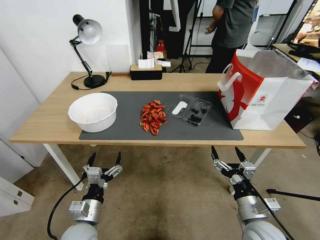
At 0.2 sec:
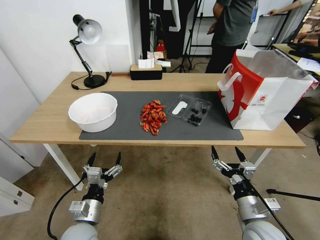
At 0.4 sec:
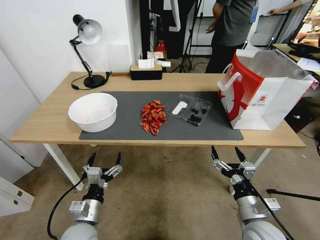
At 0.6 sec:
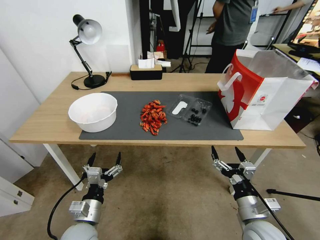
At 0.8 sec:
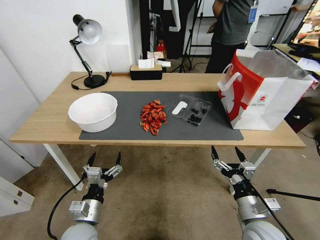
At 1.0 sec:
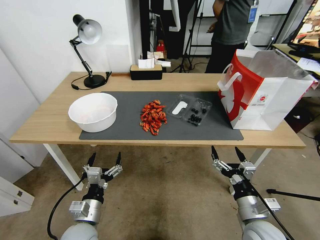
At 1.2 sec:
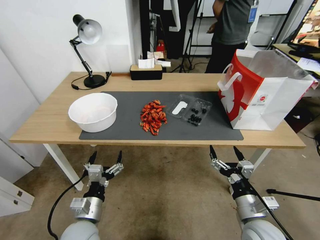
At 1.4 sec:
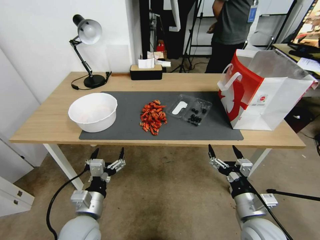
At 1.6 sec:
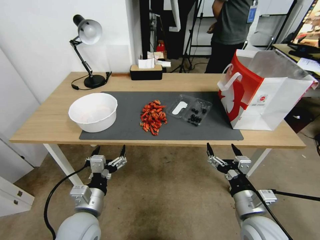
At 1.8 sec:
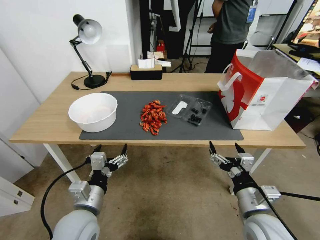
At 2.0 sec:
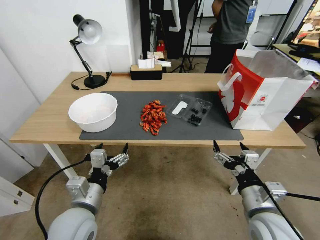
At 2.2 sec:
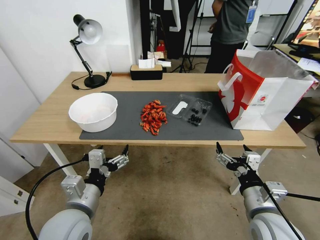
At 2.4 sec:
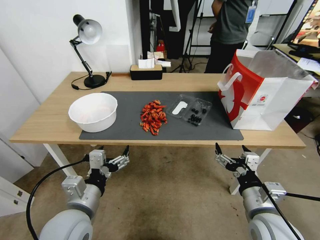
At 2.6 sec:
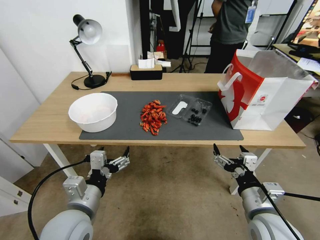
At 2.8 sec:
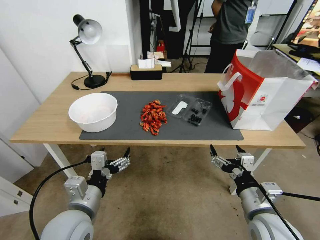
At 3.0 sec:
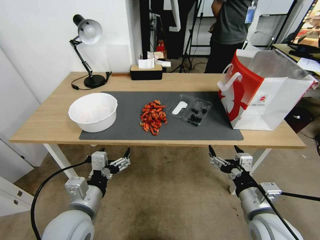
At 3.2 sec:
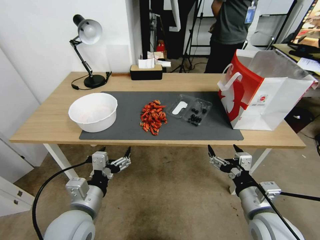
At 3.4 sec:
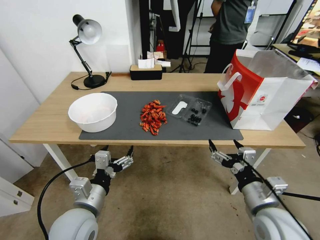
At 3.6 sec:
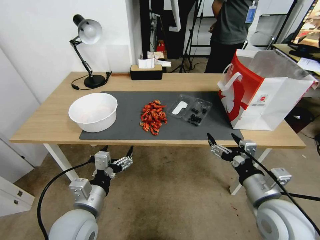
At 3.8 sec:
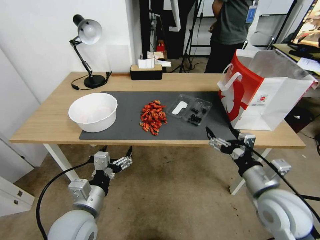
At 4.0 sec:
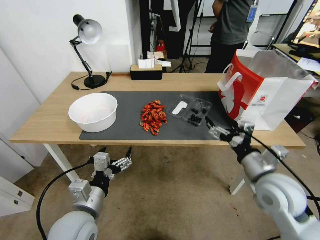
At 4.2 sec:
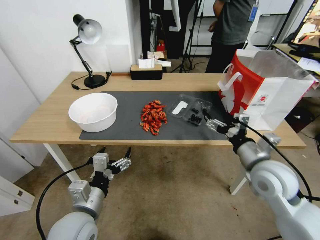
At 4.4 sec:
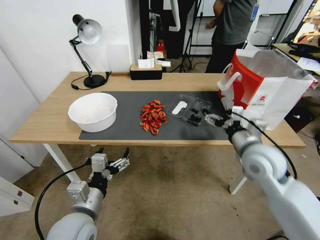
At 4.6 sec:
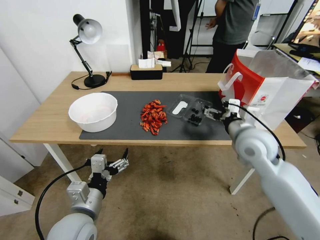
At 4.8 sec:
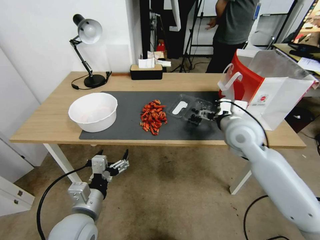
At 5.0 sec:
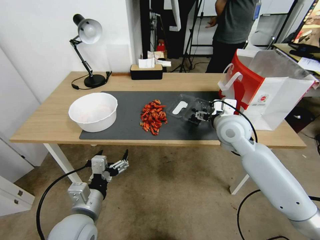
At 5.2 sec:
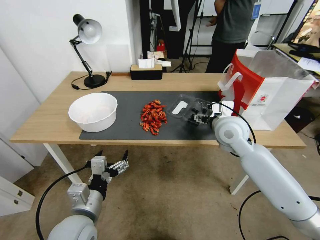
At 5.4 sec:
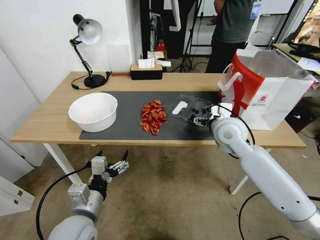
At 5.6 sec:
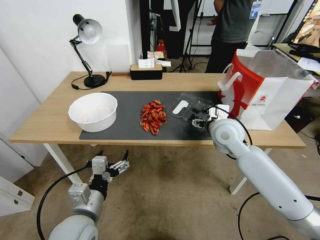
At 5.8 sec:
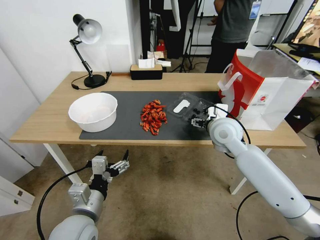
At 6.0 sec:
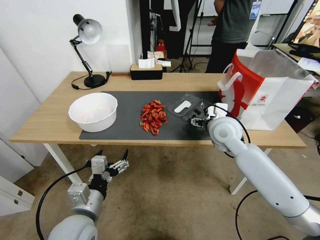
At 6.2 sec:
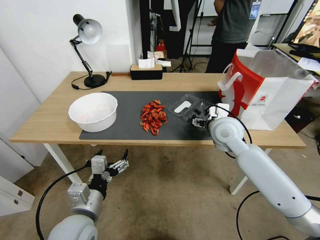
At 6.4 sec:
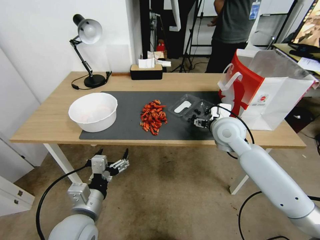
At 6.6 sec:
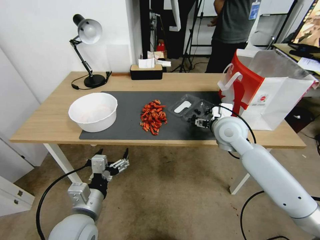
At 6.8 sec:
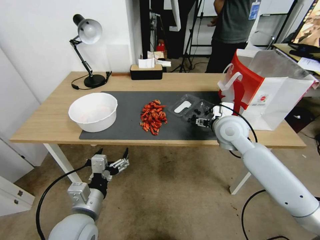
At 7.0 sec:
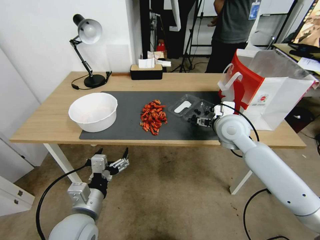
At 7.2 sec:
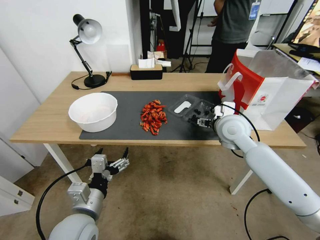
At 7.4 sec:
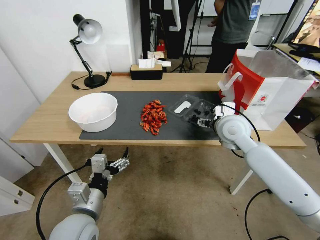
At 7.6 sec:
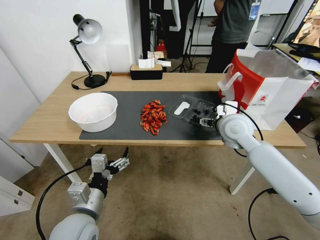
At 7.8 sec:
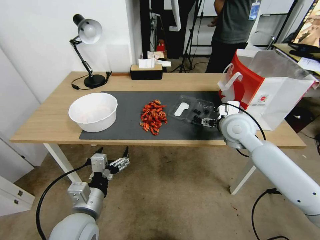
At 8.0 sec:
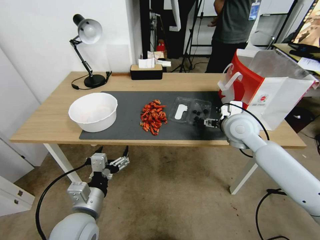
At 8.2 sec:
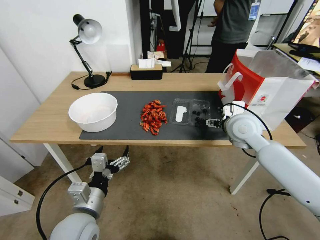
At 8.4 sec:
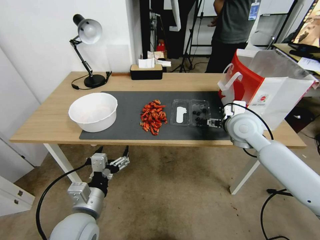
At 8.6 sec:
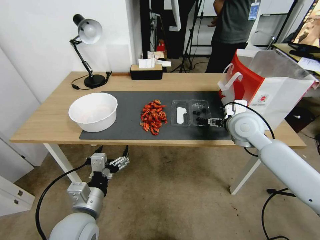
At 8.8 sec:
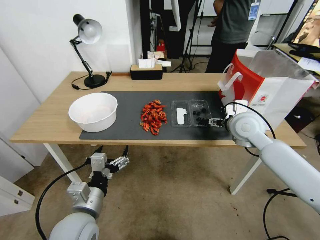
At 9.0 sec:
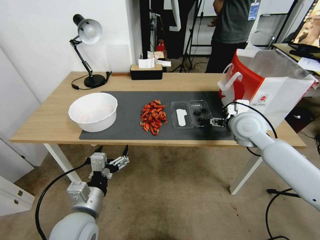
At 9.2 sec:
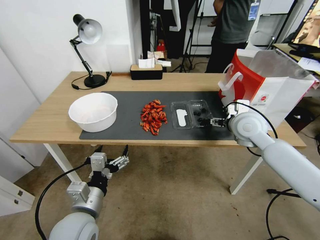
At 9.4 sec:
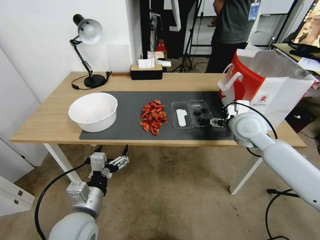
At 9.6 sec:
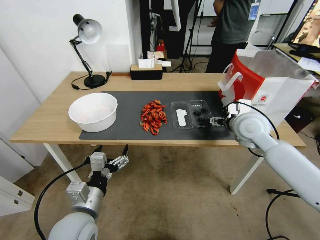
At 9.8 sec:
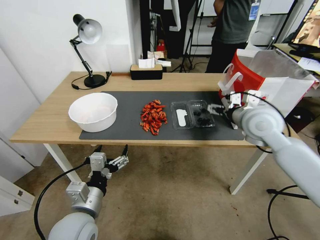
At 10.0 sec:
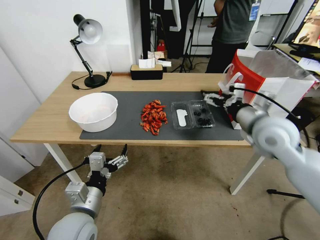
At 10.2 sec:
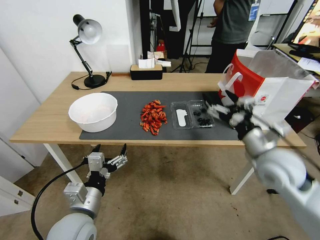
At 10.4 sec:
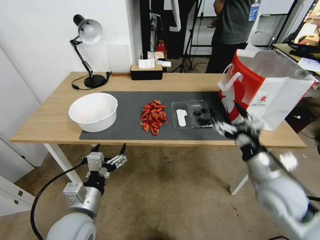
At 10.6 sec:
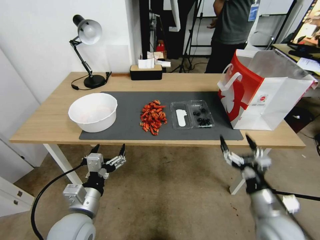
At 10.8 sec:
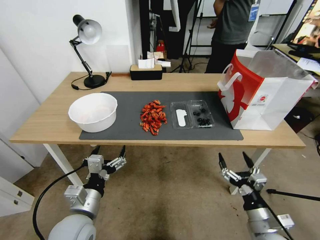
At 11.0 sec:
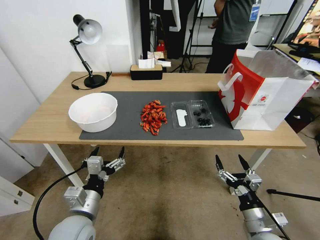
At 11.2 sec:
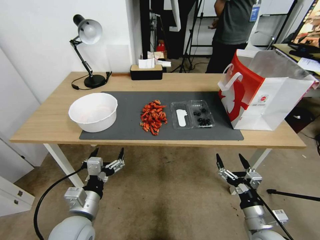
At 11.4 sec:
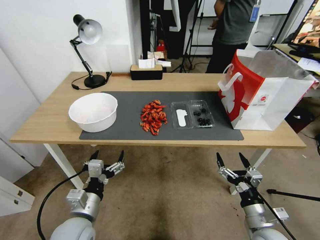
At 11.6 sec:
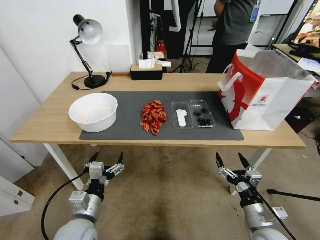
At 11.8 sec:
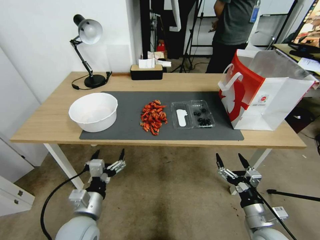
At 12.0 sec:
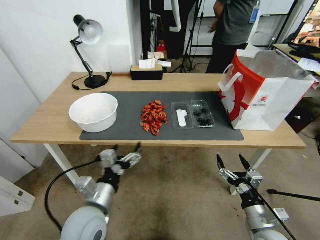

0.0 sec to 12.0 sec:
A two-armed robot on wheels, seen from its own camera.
1.6 sec to 3.0 sec: The left gripper shifts roughly 5 cm upward.
3.0 sec to 4.4 sec: The right gripper moves forward and upward, some 15 cm.
4.4 sec to 6.0 sec: The right gripper goes about 10 cm forward and to the left.
6.0 sec to 7.6 sec: The grippers make only small movements.
7.6 sec to 9.0 sec: The grippers make only small movements.
9.0 sec to 10.4 sec: The right gripper heads backward and downward, covering some 20 cm.
10.4 sec to 12.0 sec: The right gripper travels downward and backward by roughly 15 cm.

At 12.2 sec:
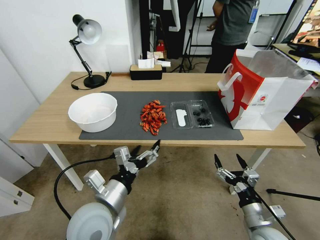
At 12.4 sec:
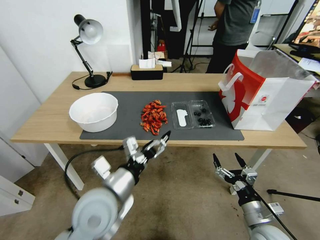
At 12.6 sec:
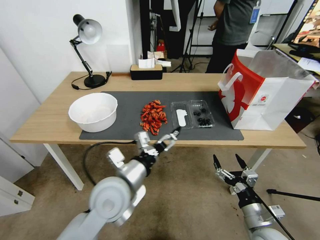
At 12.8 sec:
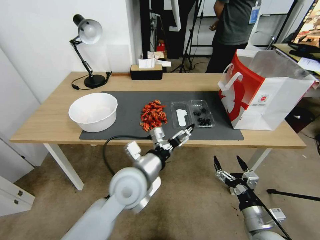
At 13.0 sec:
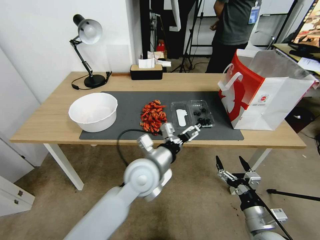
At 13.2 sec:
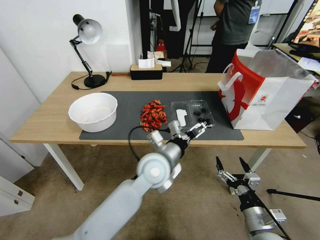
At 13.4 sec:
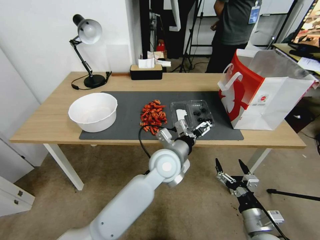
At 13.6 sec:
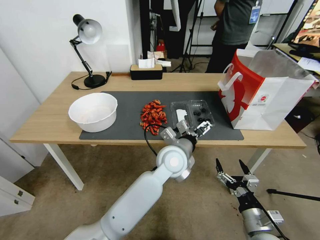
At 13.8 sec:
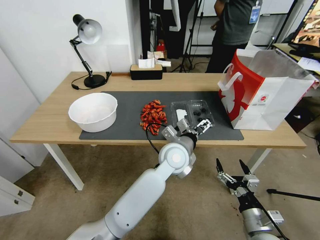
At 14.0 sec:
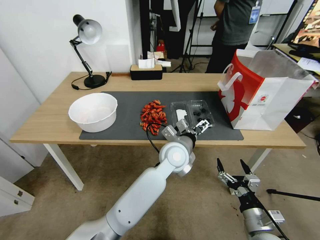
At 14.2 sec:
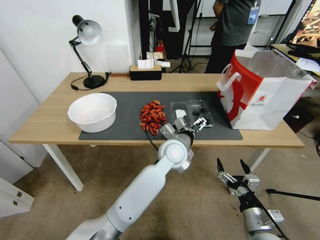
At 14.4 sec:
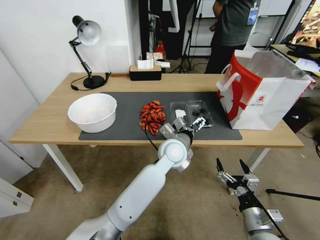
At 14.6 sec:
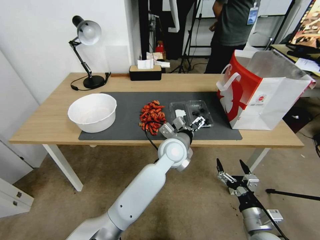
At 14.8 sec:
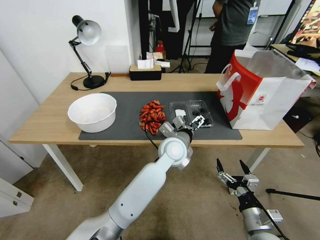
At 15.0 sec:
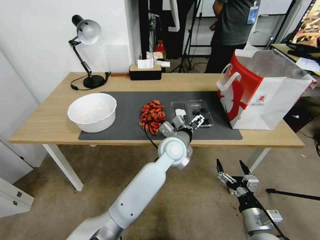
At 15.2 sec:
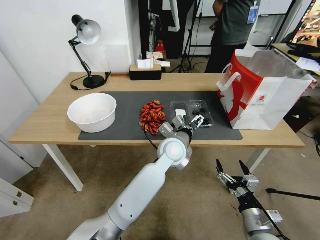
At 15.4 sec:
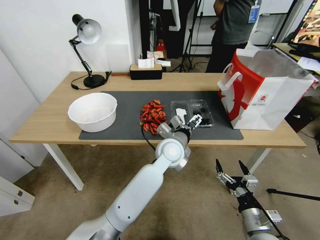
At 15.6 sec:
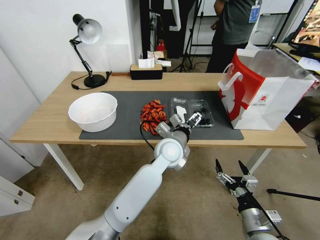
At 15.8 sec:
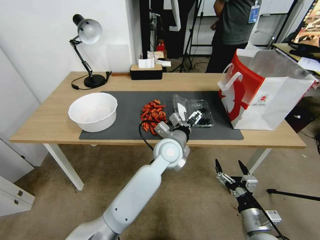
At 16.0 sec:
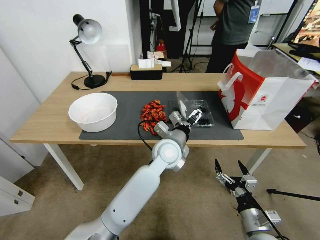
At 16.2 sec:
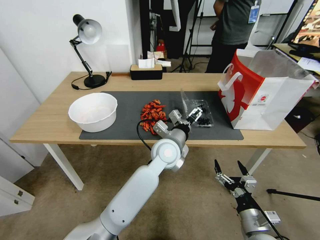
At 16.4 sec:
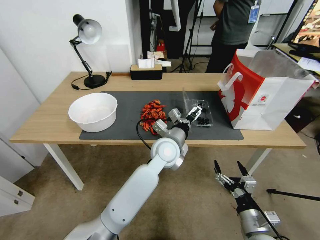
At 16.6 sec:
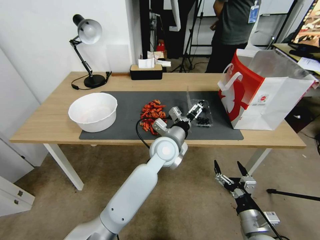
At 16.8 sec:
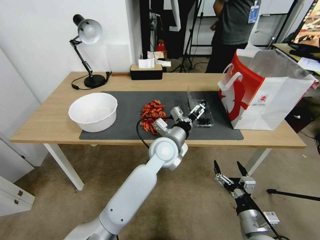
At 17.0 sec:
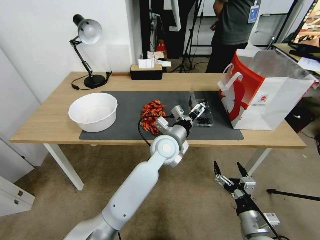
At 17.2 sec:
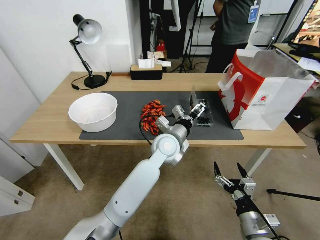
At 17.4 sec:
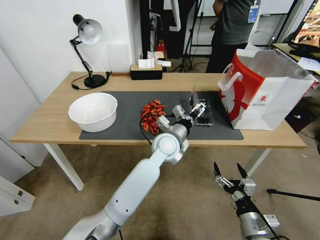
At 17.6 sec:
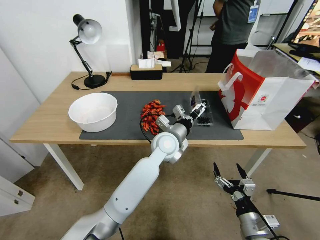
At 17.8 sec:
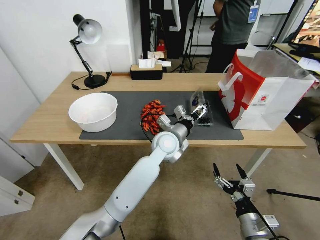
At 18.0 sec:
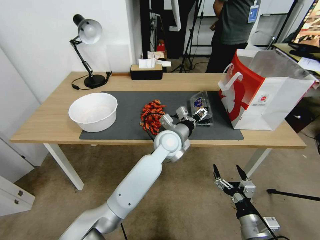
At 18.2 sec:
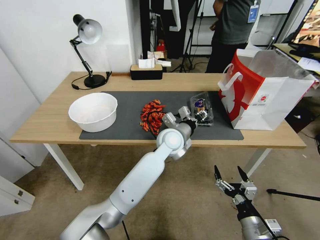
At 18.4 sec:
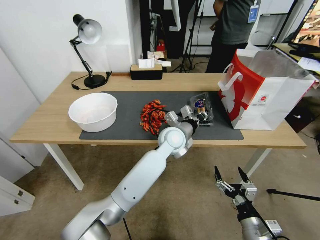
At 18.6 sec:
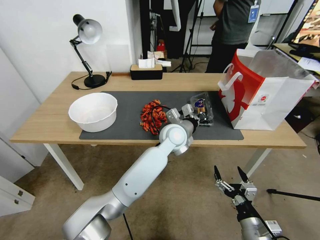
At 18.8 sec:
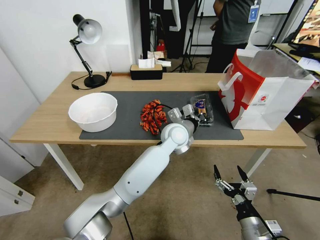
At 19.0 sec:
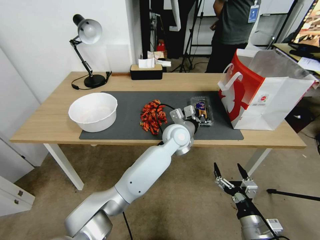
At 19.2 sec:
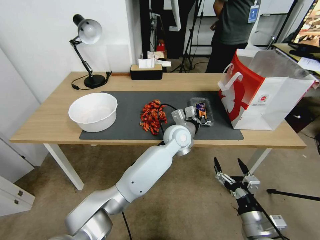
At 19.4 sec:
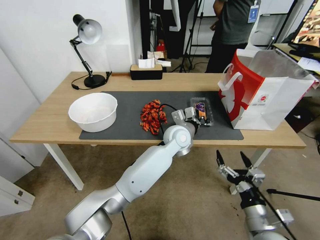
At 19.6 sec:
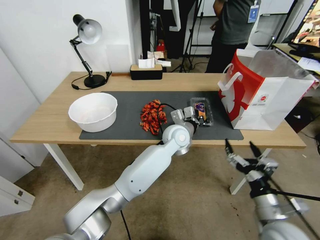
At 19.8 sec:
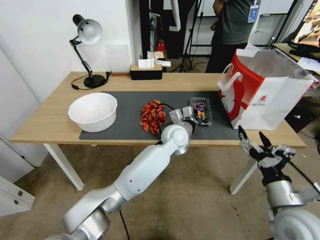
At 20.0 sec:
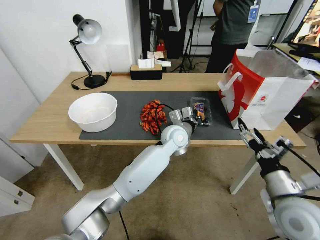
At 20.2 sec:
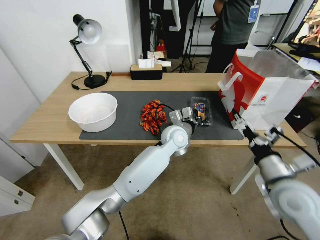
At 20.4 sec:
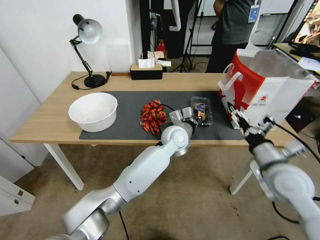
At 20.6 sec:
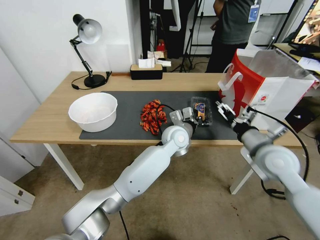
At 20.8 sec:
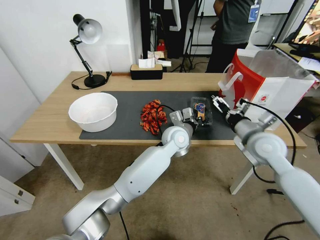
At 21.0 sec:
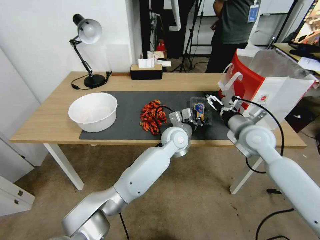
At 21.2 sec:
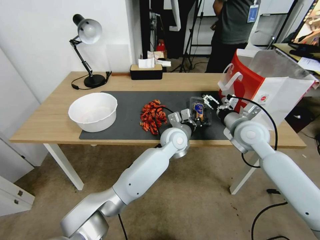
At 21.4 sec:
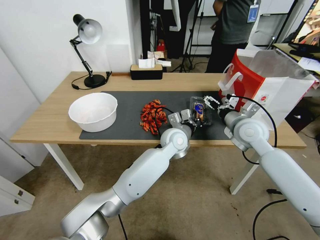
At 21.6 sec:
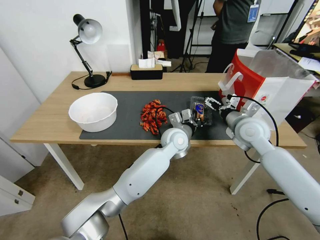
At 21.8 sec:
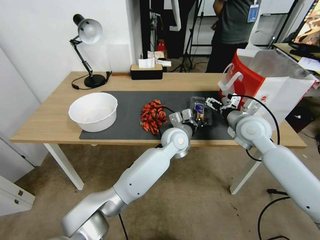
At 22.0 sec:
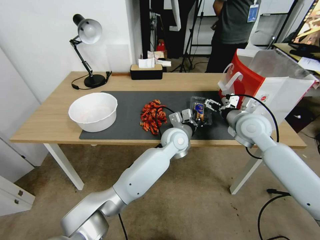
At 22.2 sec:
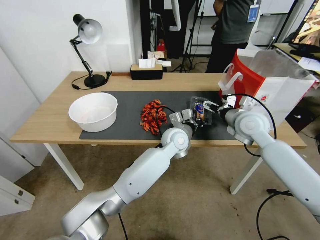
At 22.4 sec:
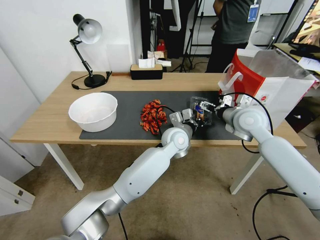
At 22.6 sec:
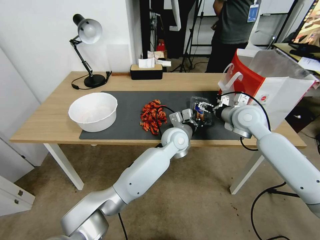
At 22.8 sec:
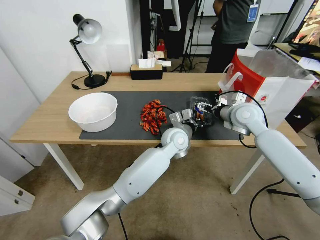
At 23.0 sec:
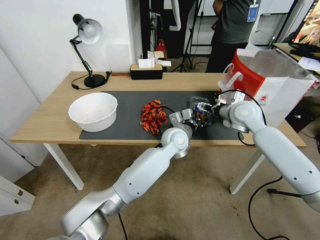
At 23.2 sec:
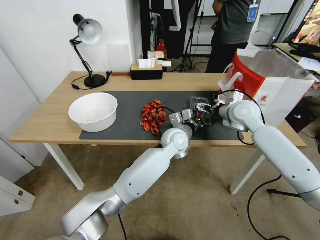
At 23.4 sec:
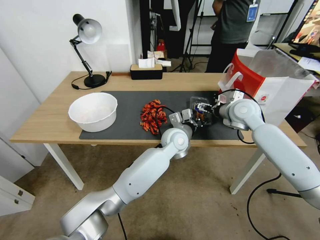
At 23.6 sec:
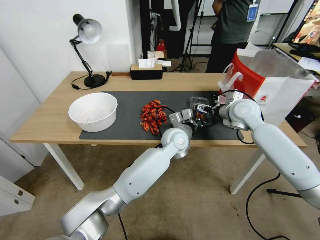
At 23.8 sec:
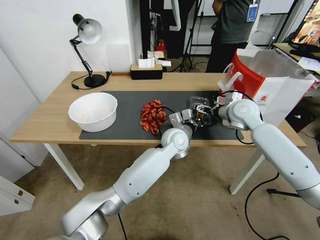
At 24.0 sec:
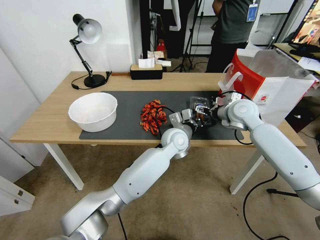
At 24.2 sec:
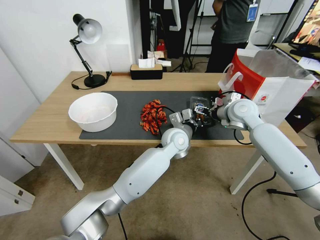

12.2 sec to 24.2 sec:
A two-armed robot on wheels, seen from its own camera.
12.2 sec to 13.8 sec: The left gripper travels to the right and forward by about 25 cm.
13.8 sec to 16.6 sec: The grippers make only small movements.
16.6 sec to 18.2 sec: The left gripper closes.
18.2 sec to 19.8 sec: The right gripper is displaced upward by about 15 cm; the left gripper closes up.
19.8 sec to 21.2 sec: The right gripper travels forward by about 25 cm.
21.2 sec to 22.6 sec: The right gripper changes place by roughly 5 cm.
22.6 sec to 24.2 sec: The grippers stay close to where they were, moving slightly.
